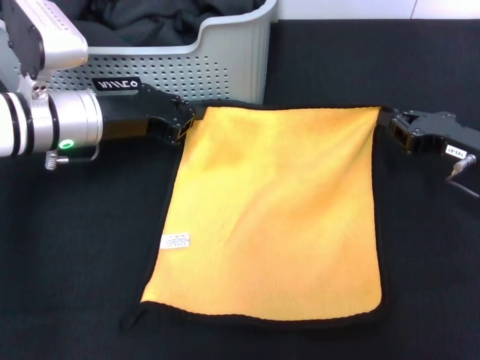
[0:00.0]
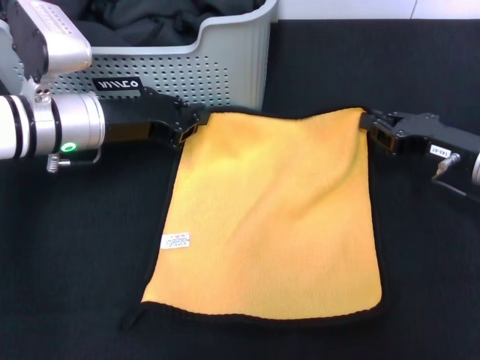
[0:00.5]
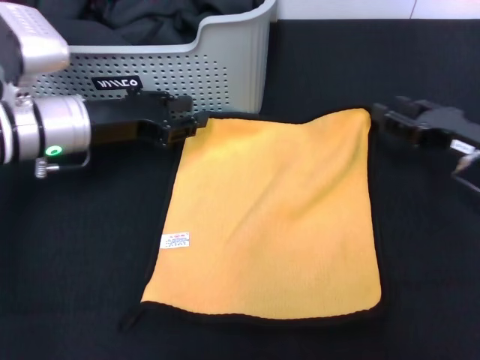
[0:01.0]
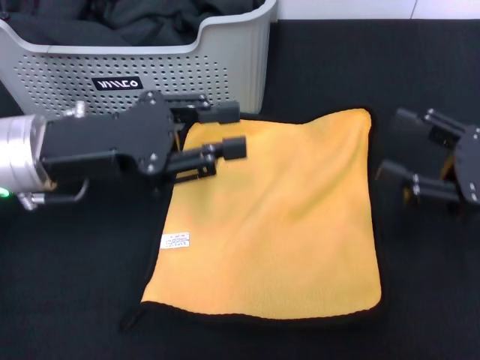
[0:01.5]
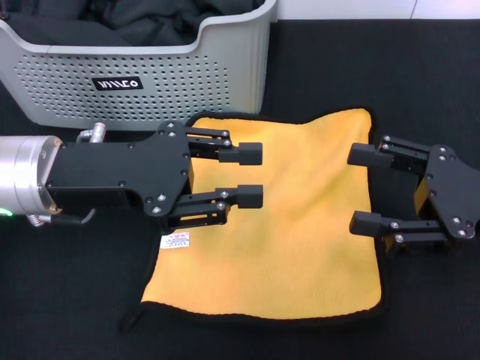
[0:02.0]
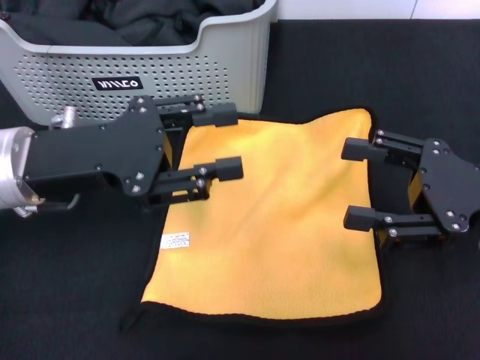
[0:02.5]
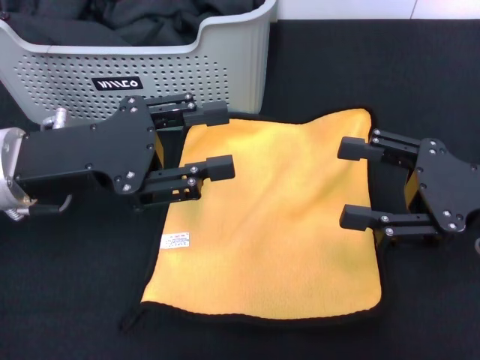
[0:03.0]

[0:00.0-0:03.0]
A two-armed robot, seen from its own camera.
Task of the whole recording: pick up the towel from the storage box and lay it flat on the black tablecloth.
0:00.0 to 0:01.5: The grippers both shift backward by roughly 5 cm. The right gripper opens. The left gripper opens its fingers.
0:01.5 to 0:03.0: There are only small adjustments of the grippers.

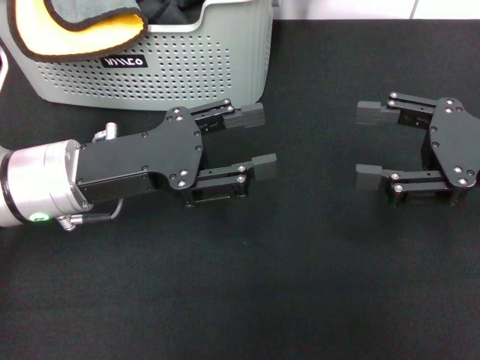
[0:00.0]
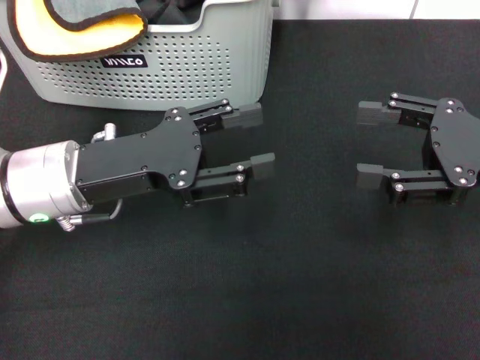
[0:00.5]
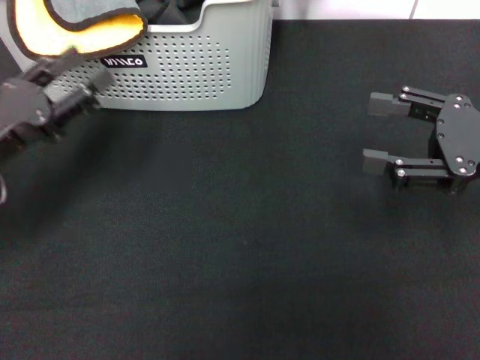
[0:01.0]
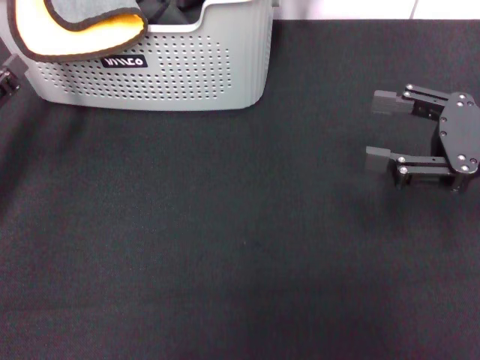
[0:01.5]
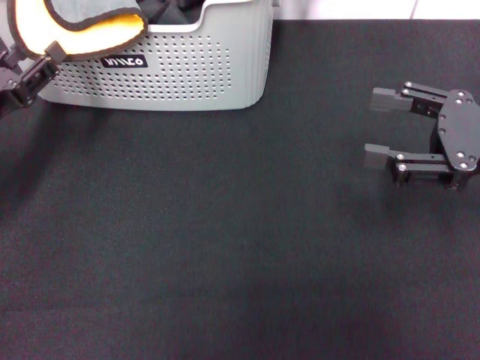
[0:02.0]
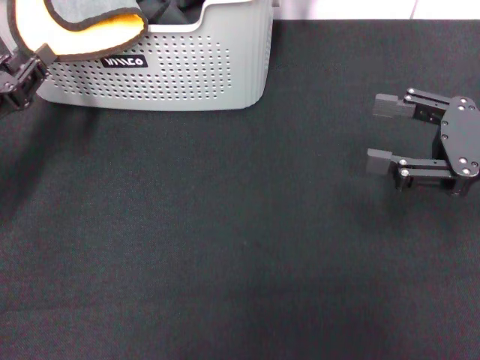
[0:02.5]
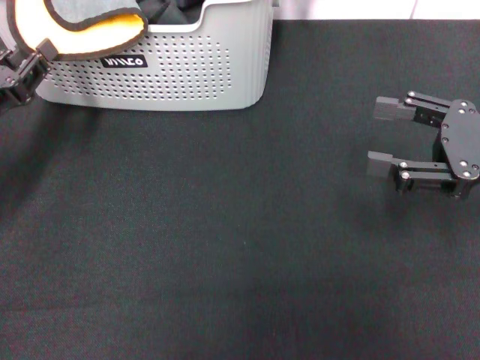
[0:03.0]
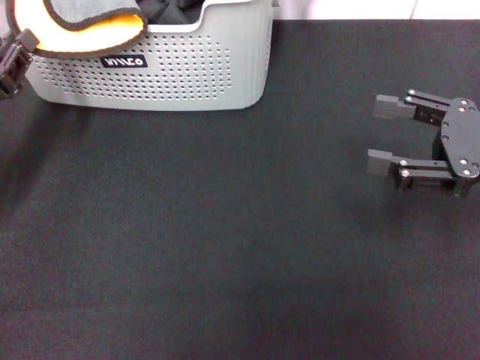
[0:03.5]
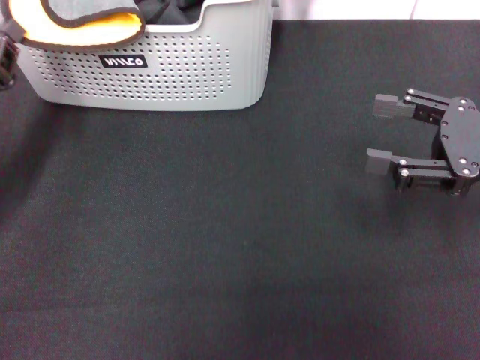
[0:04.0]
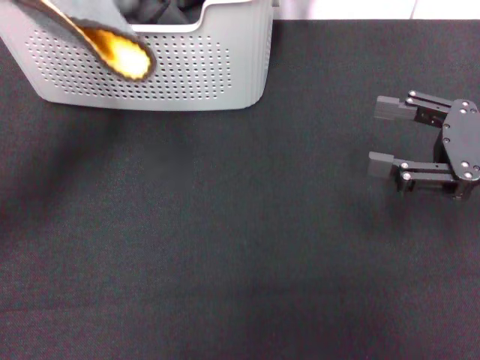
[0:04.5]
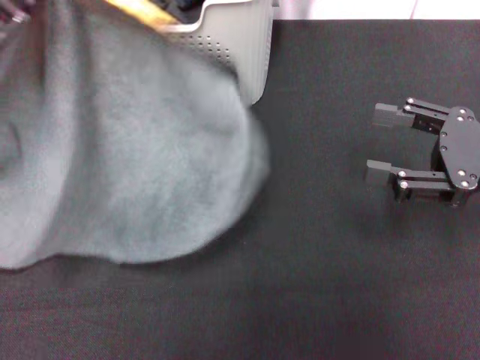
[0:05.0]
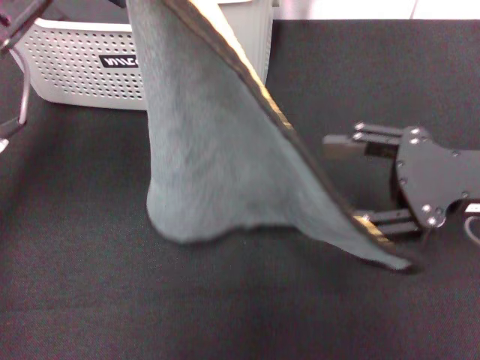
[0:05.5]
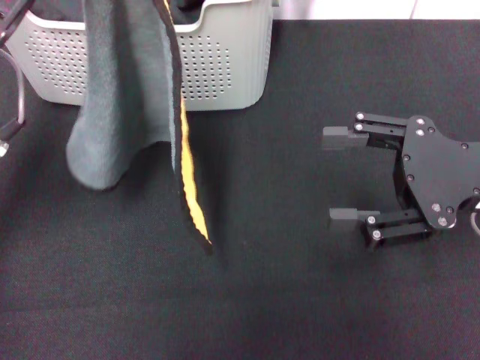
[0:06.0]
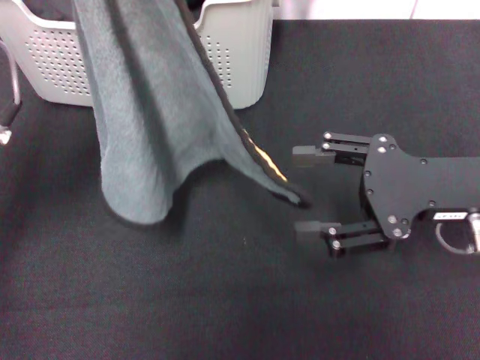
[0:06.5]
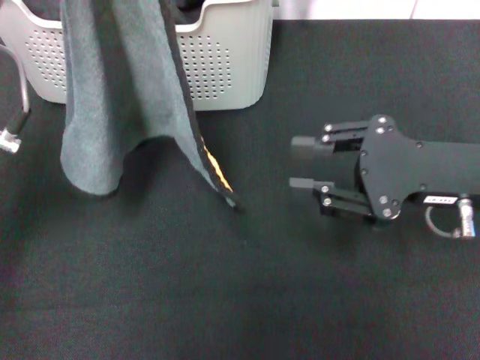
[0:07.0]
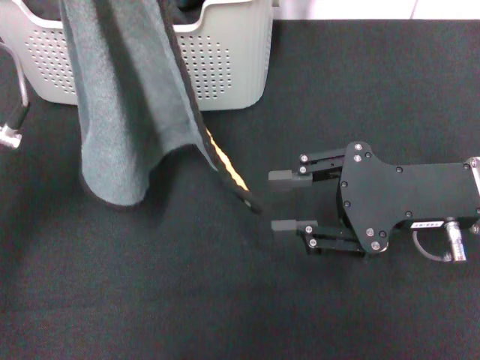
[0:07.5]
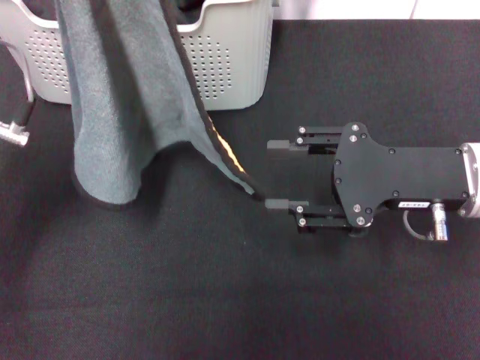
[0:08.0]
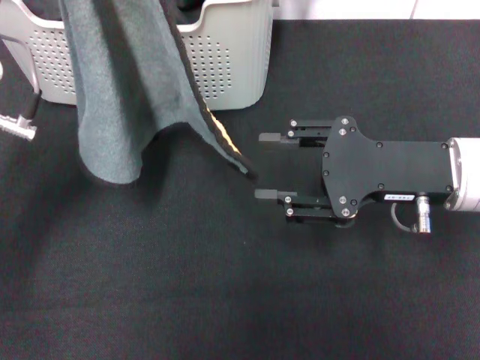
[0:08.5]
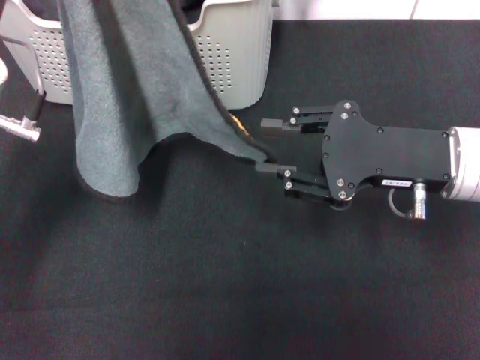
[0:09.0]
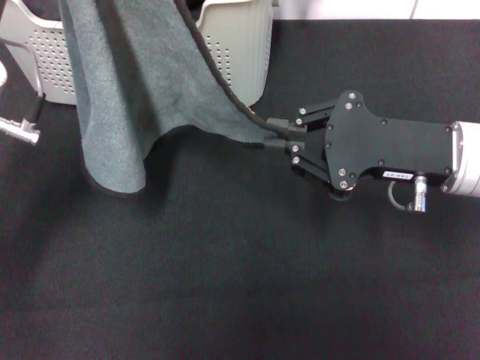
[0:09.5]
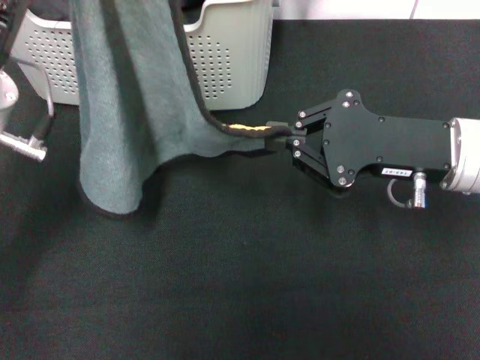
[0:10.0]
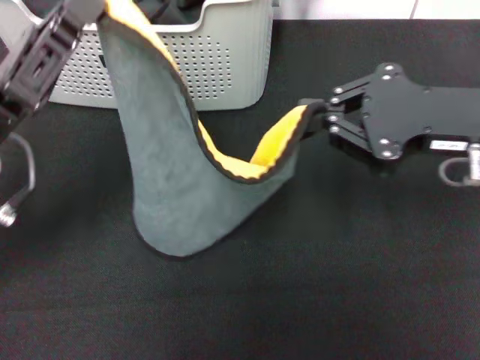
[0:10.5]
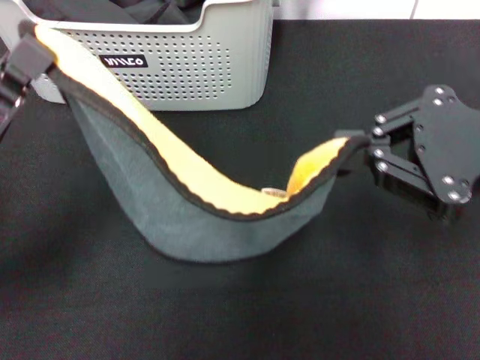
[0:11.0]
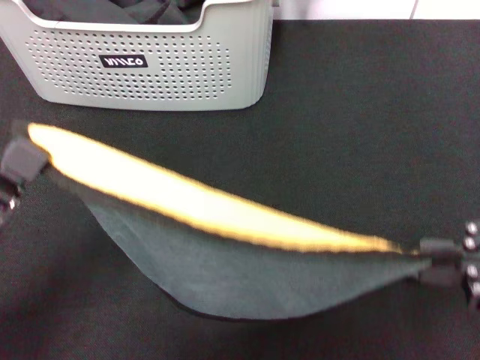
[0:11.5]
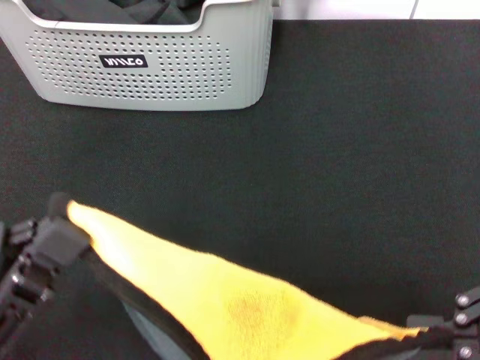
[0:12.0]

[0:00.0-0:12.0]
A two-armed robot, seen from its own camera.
Task of the whole recording: pick up the towel from the storage box and lay it flat on the black tablecloth.
Step, 0:00.0 to 0:03.5: Pick up a towel with the left gripper.
Step, 0:04.0 to 0:09.5: Spread the towel flat with the left gripper.
0:00.0 to 0:02.0: The left gripper goes roughly 10 cm to the left.
0:02.0 to 0:04.0: The left gripper closes up.
0:04.0 to 0:06.0: The left gripper is displaced upward and to the right by roughly 15 cm.
0:06.0 to 0:08.0: The right gripper closes and opens again.
0:08.0 to 0:10.0: The right gripper closes its fingers.
0:10.0 to 0:12.0: The right gripper moves backward, upward and to the right, some 20 cm. The left gripper heads backward, covering roughly 15 cm.

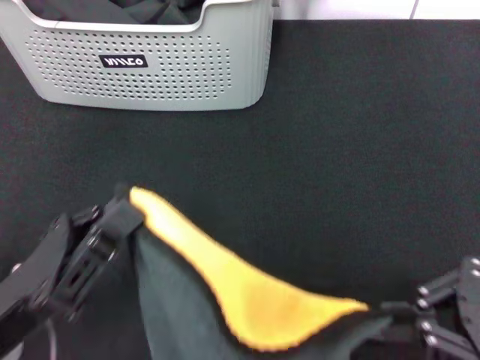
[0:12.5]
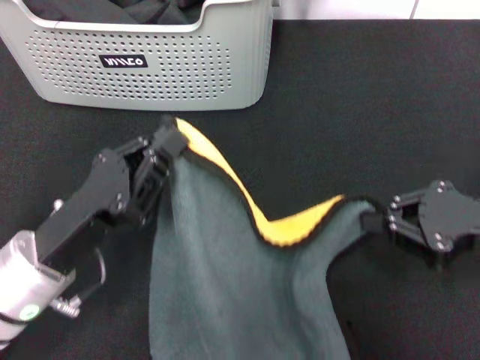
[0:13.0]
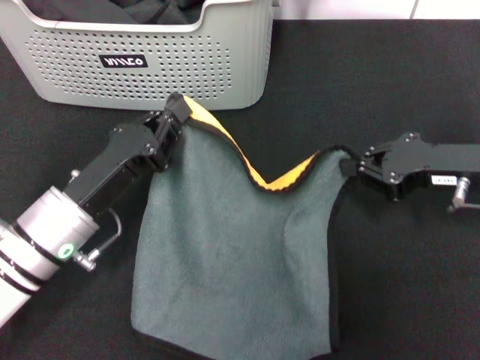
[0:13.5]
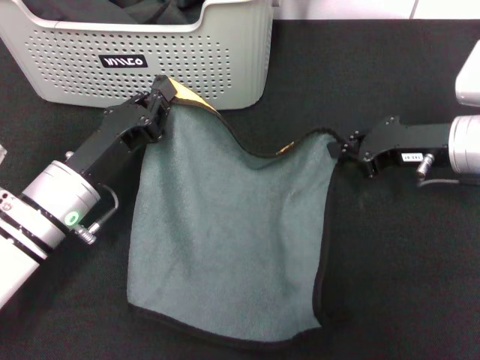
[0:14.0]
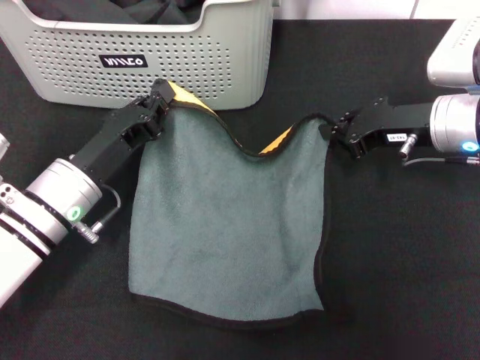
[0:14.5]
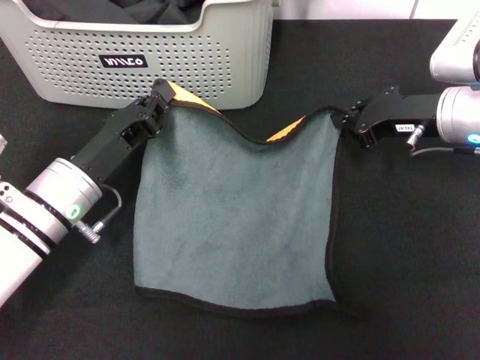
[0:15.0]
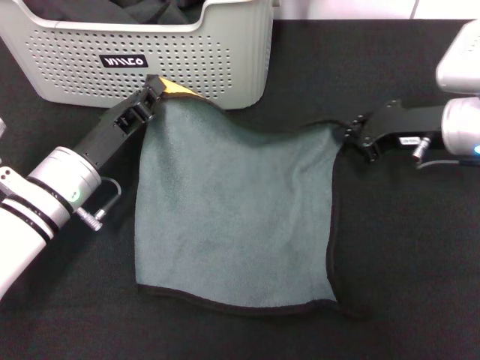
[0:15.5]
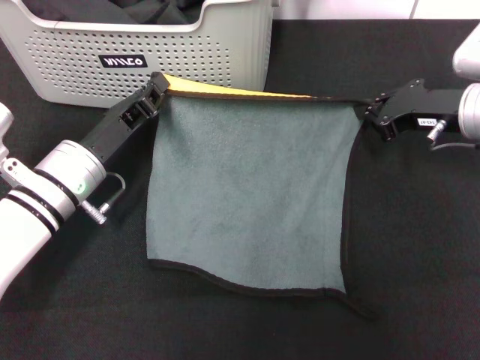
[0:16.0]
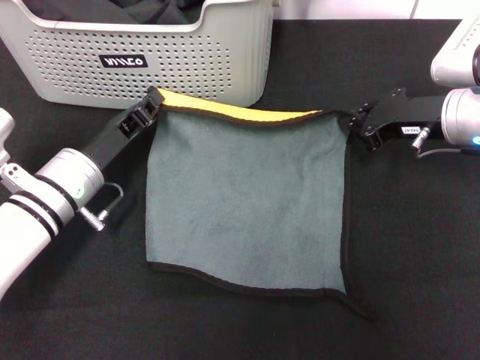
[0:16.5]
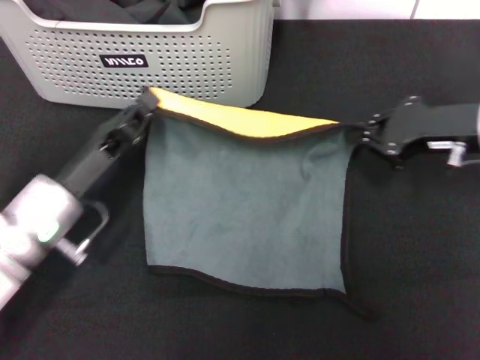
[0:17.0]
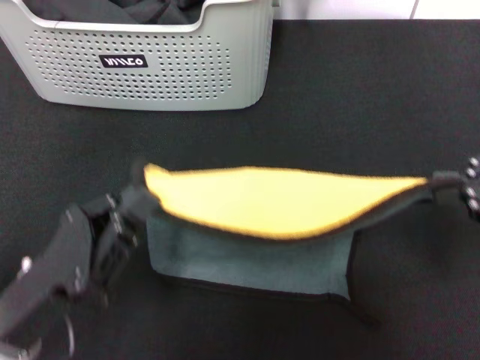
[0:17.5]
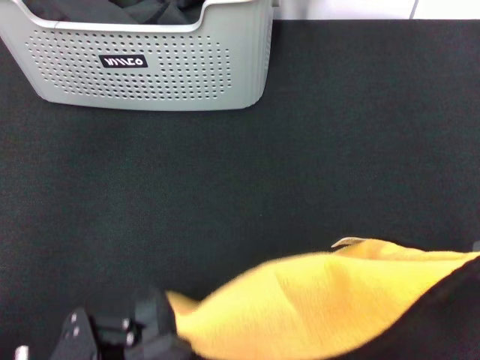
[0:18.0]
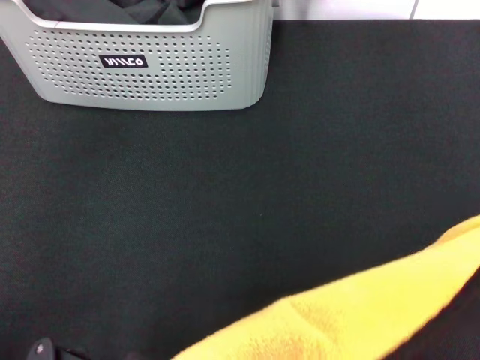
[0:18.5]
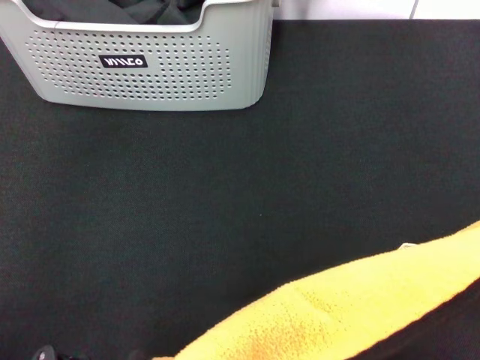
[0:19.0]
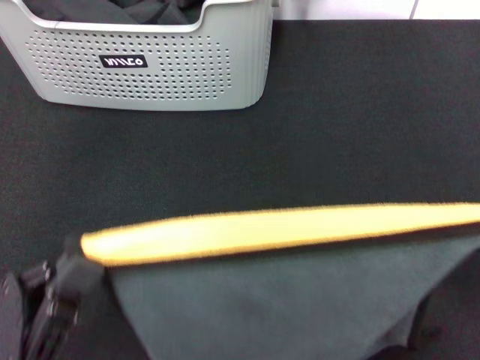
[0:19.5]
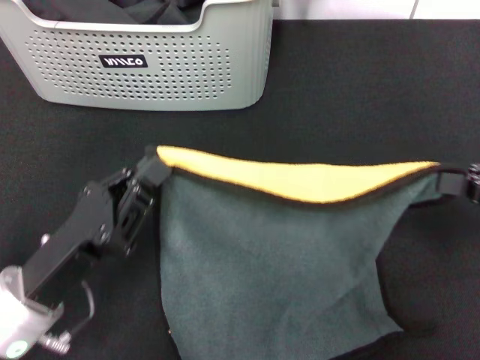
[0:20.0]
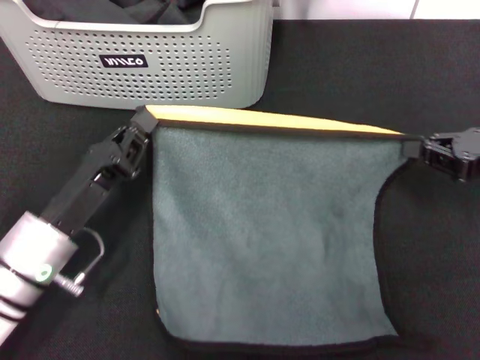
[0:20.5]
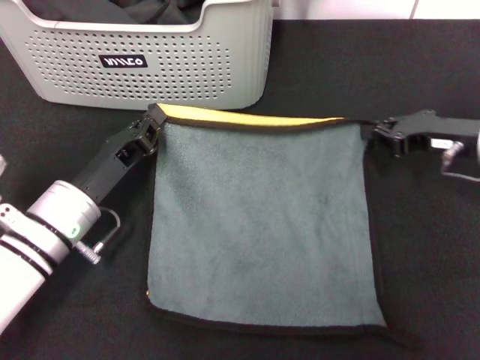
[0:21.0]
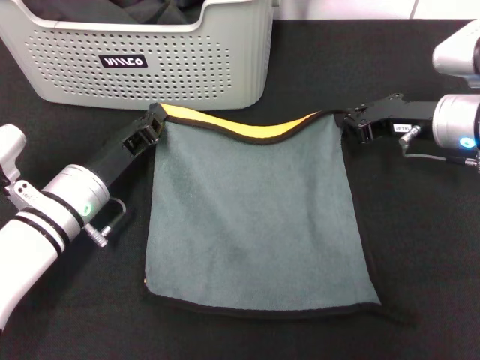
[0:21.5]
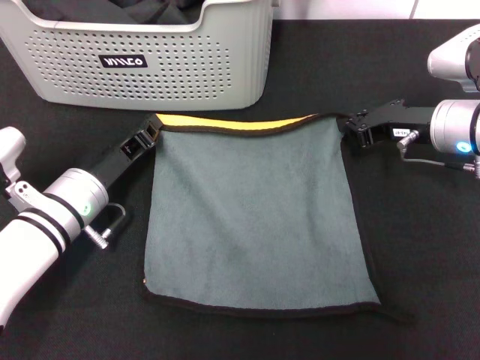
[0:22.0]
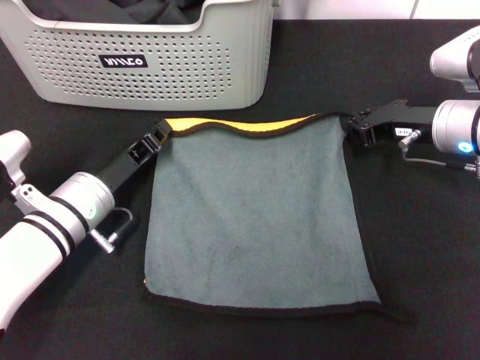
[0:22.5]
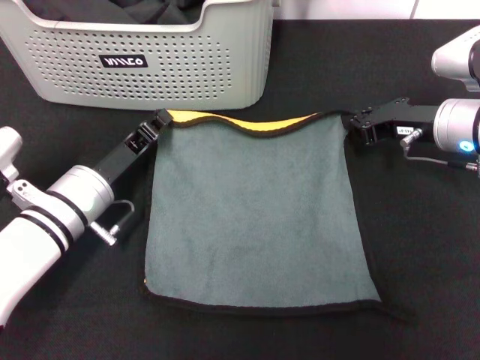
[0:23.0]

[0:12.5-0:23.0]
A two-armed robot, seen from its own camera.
Task of the whole recording: pick up the towel from the storage box and lay it flat on the black tablecloth.
0:12.5 to 0:14.5: The two grippers go roughly 20 cm forward.
0:16.5 to 0:19.0: The left gripper moves backward, some 25 cm. Meanwhile the right gripper heads backward, upward and to the right, covering roughly 30 cm.
0:19.0 to 0:21.0: The right gripper travels forward and downward by roughly 30 cm; the left gripper shifts approximately 20 cm forward.
0:21.0 to 0:23.0: There are only small adjustments of the grippers.
